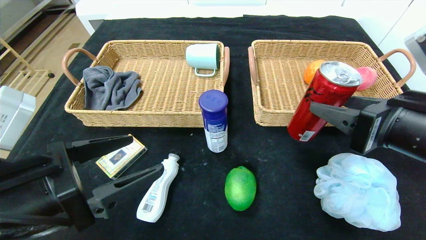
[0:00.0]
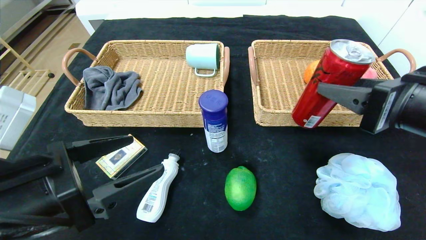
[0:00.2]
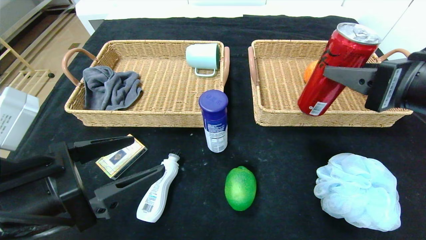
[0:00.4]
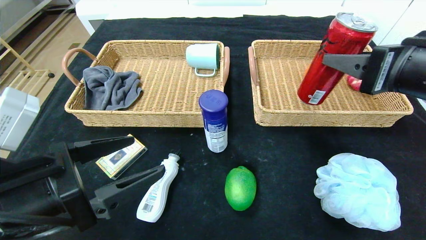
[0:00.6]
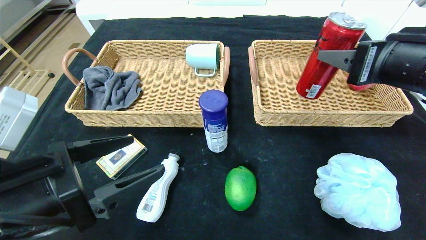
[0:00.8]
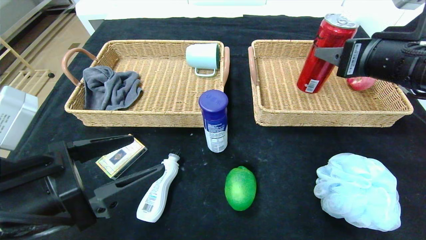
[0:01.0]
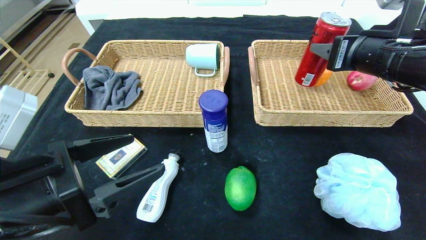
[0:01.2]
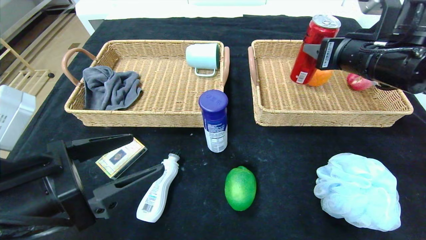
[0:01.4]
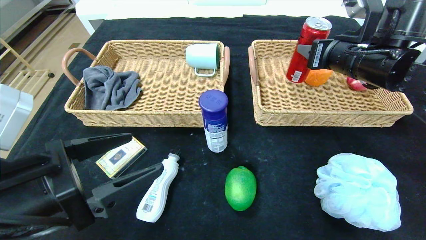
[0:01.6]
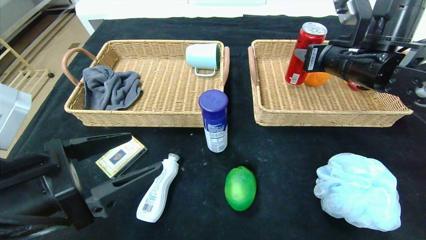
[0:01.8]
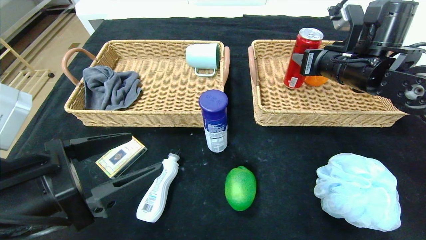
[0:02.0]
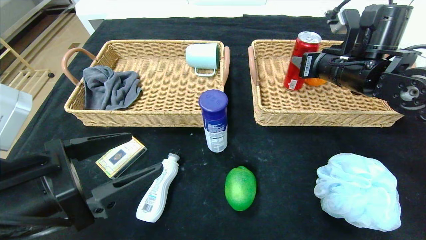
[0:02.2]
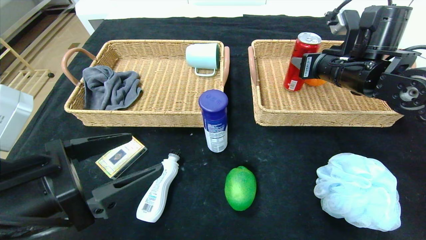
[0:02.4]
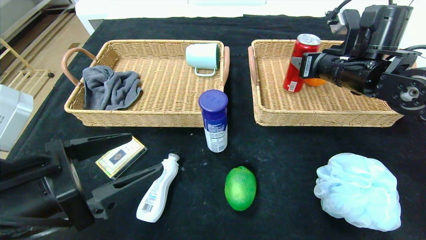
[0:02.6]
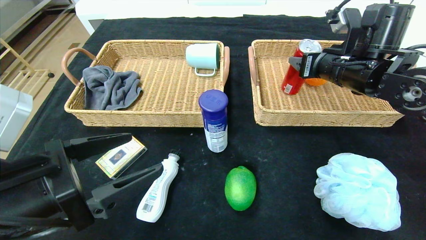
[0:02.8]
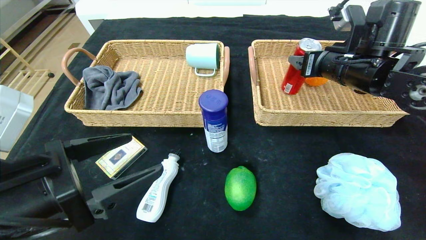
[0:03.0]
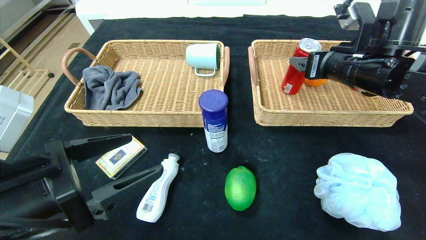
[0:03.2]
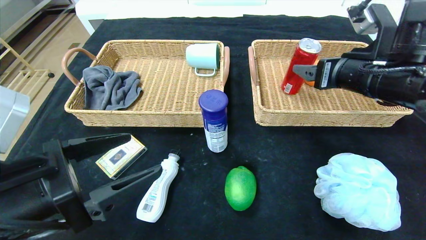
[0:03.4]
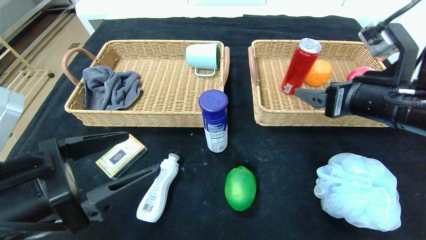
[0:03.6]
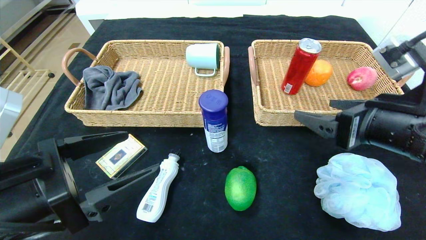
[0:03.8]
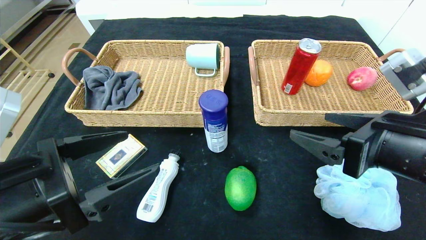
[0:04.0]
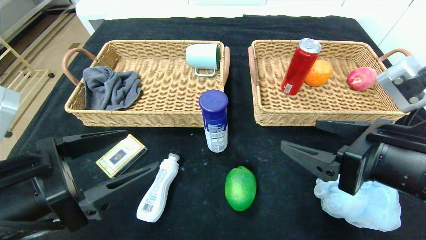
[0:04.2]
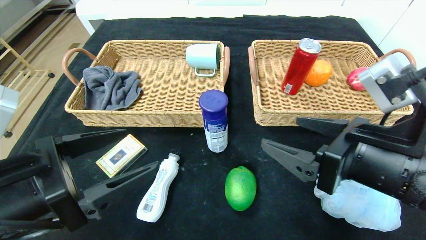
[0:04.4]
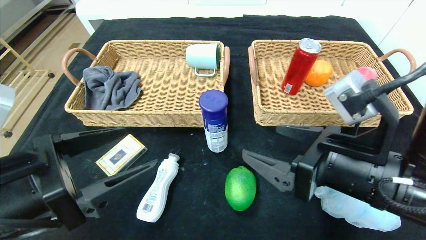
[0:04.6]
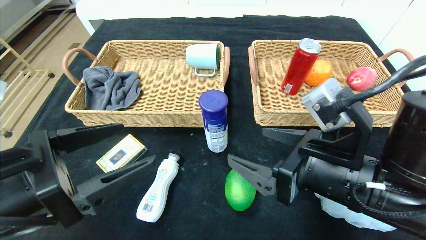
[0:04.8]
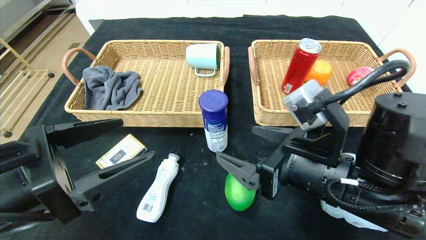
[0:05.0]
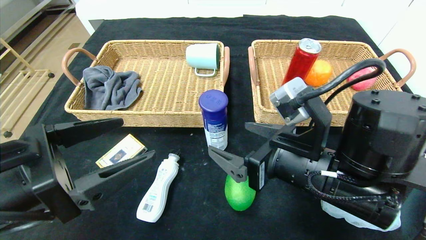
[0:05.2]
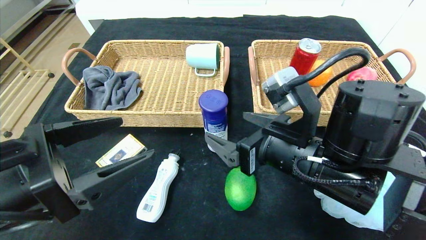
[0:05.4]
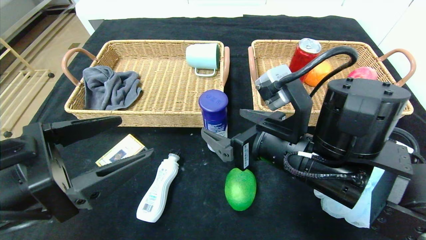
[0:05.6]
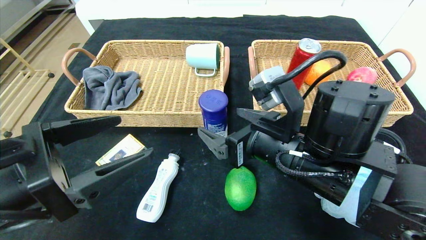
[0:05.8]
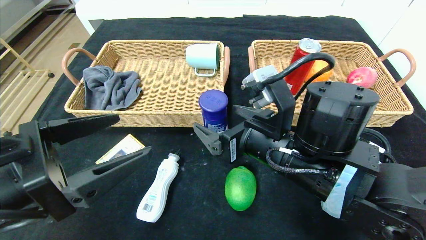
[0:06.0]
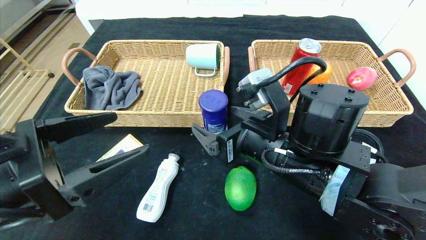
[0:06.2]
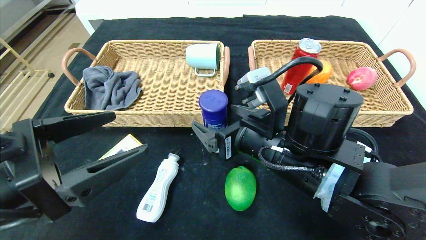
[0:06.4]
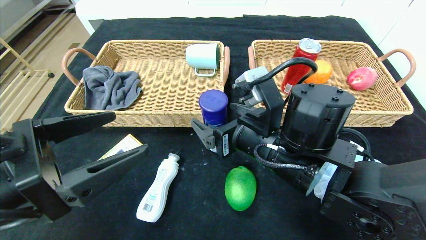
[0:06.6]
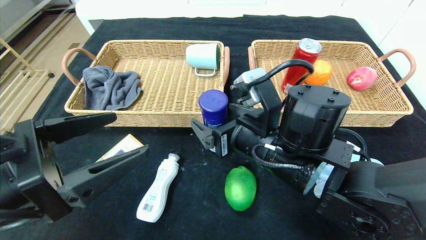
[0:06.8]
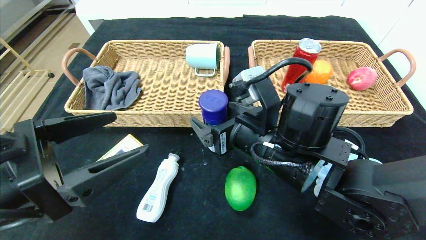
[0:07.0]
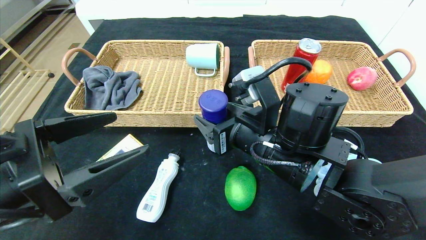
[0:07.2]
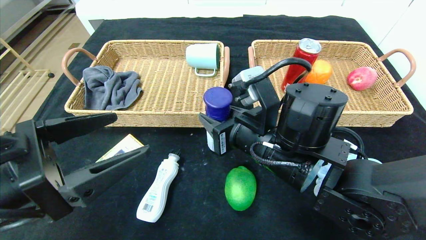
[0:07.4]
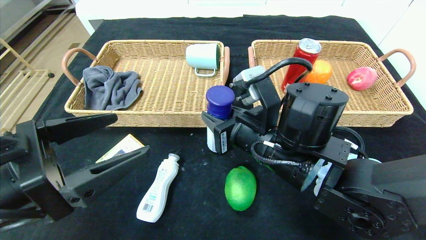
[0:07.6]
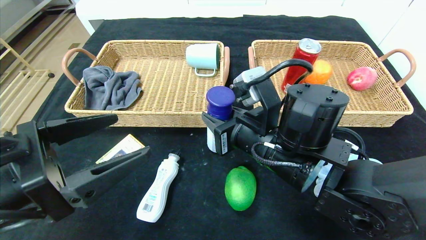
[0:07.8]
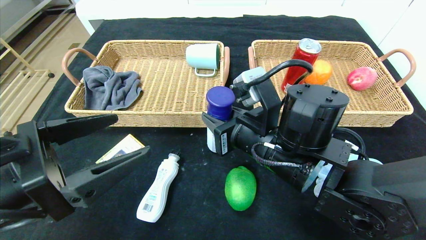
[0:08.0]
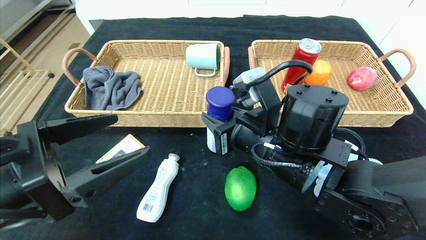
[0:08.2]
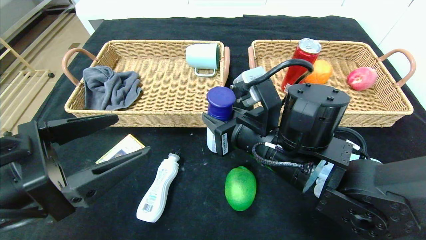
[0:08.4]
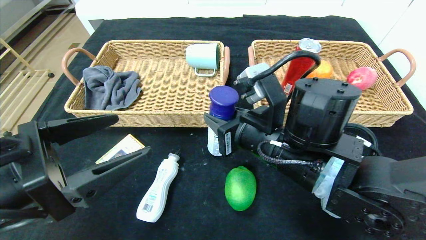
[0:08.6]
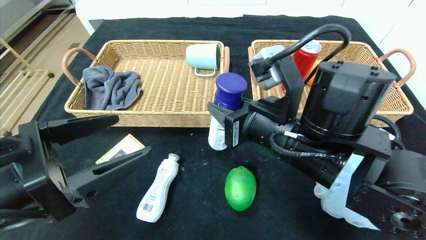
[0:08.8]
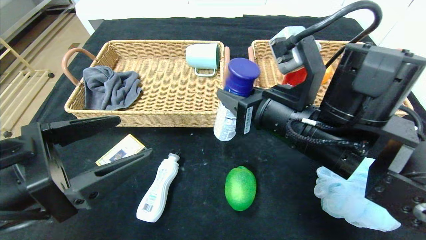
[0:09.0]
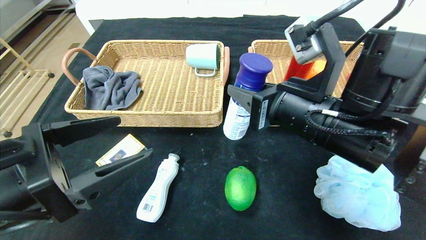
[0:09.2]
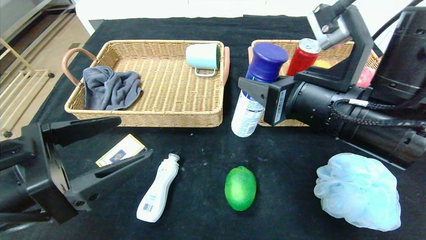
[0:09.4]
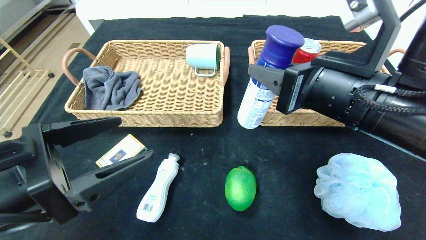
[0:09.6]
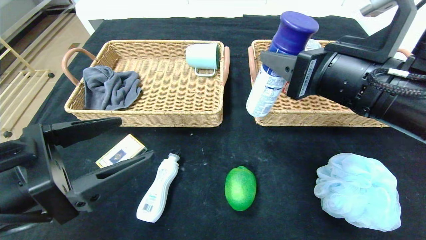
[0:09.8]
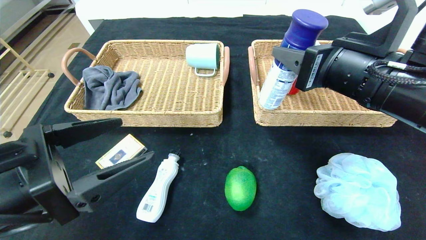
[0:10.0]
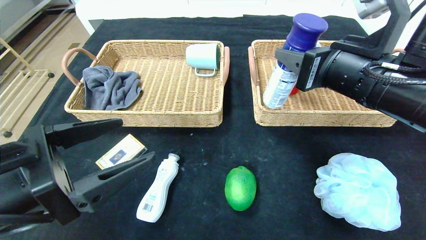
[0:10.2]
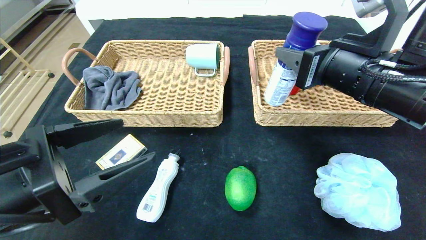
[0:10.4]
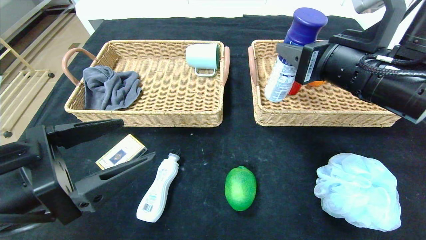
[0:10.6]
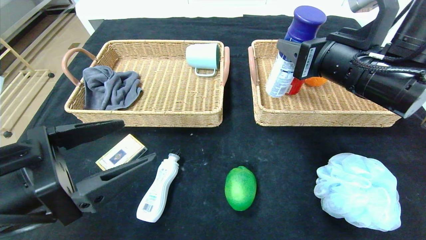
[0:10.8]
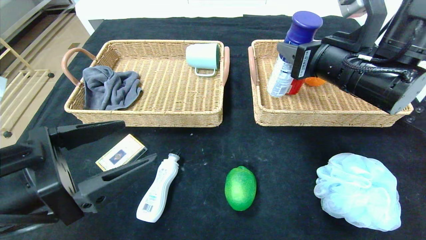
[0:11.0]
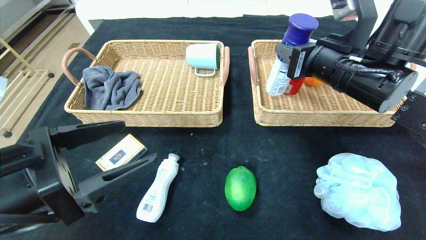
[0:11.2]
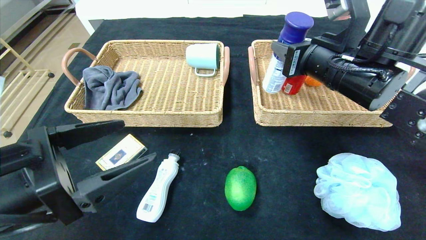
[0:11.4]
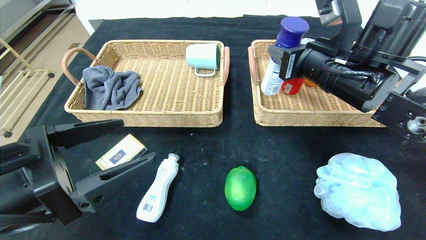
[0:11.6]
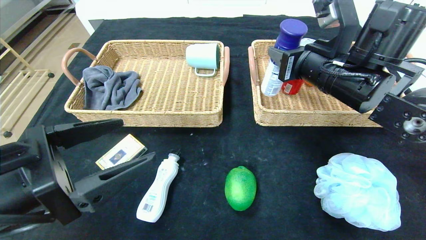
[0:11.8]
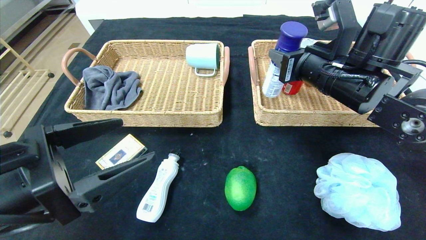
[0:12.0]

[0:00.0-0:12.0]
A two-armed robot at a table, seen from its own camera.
Step, 0:00.0 to 0:03.2: Grasp the canned cola and put it in the right basket.
0:00.0 to 0:01.6: The right gripper shifts some 15 cm forward.
0:01.6 to 0:03.0: The right gripper opens its fingers.
0:03.0 to 0:04.4: The right gripper travels backward by some 20 cm.
0:04.4 to 0:06.0: The right gripper is displaced to the left and forward by approximately 10 cm.
0:06.0 to 0:07.6: The right gripper closes up.
0:07.6 to 0:09.0: The right gripper moves approximately 5 cm.
0:09.0 to 0:10.4: The right gripper shifts approximately 10 cm to the right and upward.
0:10.4 to 0:12.0: The right gripper is displaced forward by some 5 cm.

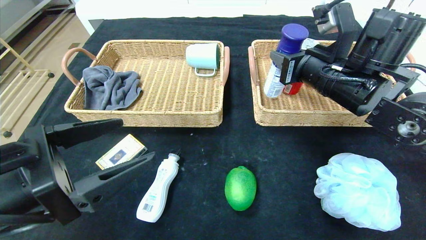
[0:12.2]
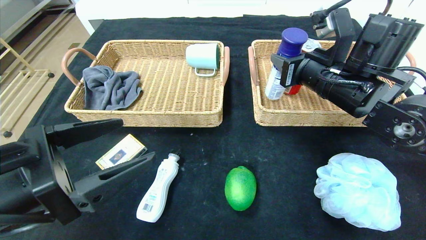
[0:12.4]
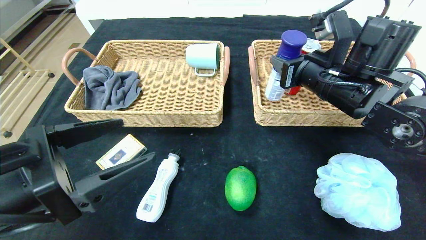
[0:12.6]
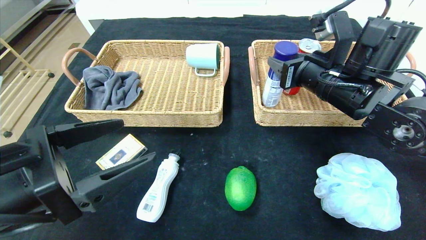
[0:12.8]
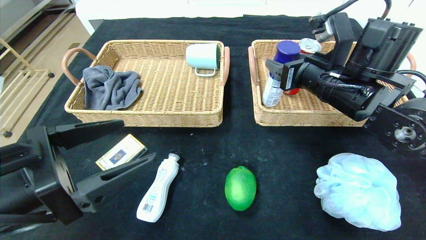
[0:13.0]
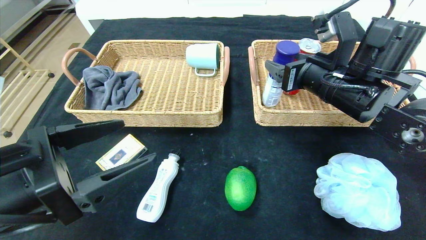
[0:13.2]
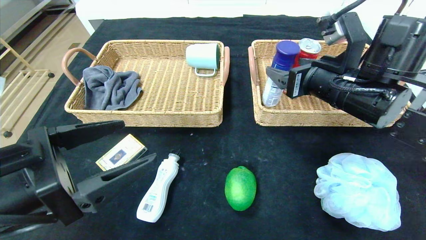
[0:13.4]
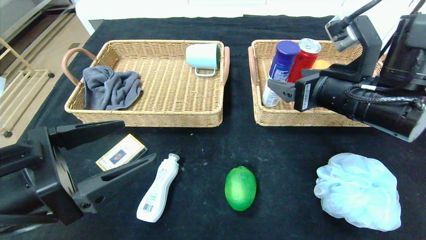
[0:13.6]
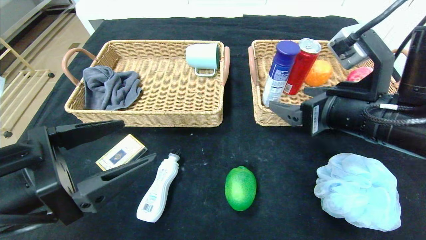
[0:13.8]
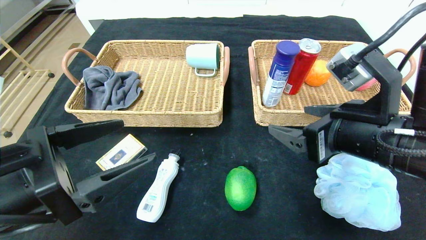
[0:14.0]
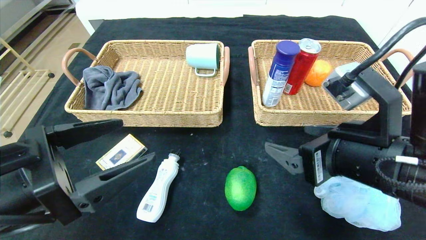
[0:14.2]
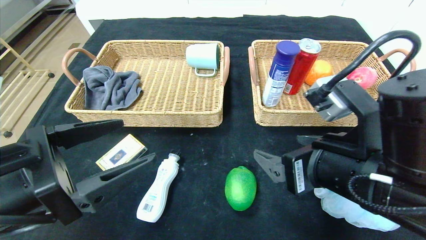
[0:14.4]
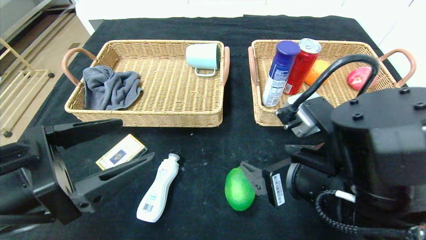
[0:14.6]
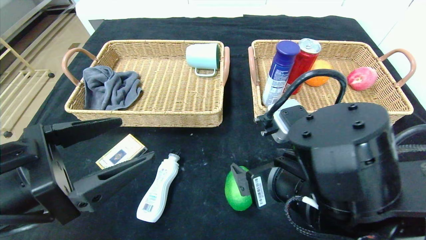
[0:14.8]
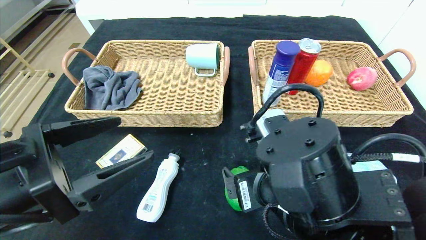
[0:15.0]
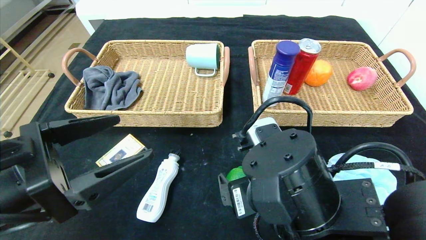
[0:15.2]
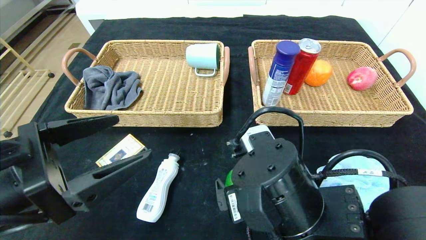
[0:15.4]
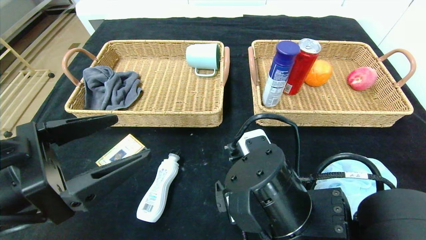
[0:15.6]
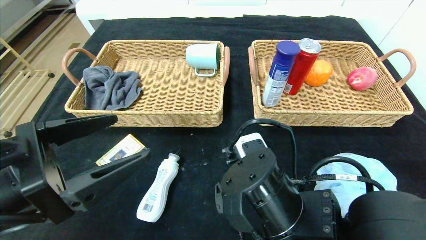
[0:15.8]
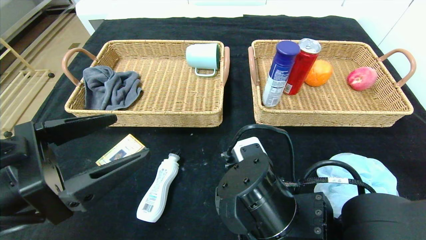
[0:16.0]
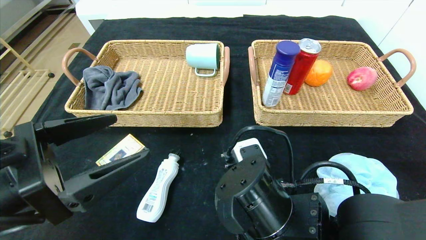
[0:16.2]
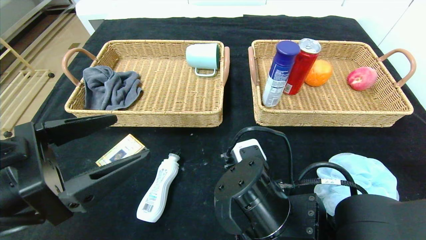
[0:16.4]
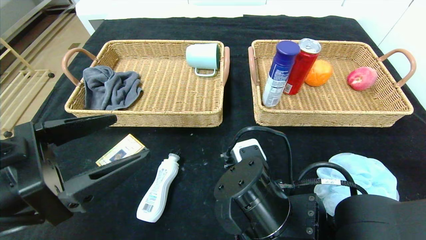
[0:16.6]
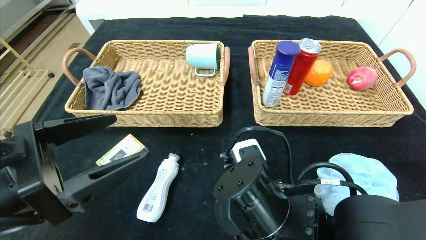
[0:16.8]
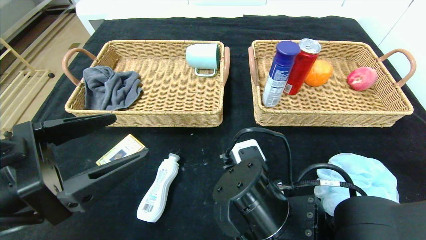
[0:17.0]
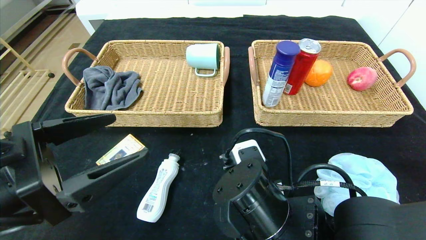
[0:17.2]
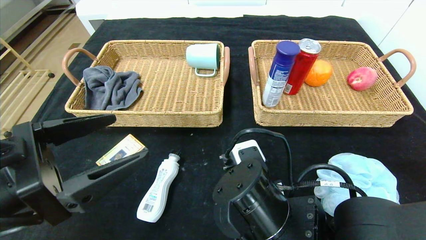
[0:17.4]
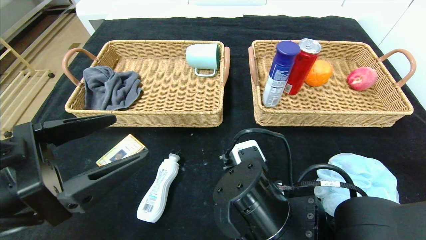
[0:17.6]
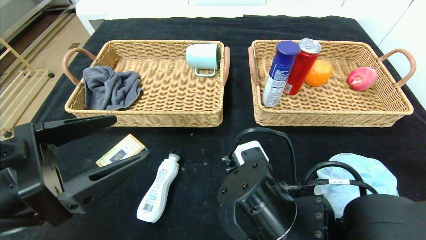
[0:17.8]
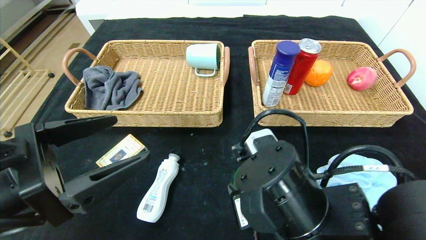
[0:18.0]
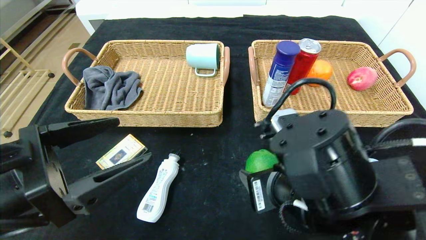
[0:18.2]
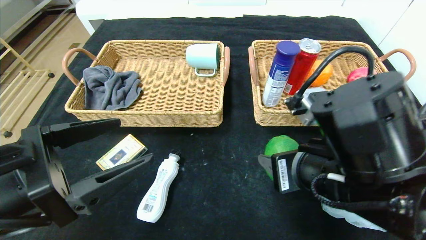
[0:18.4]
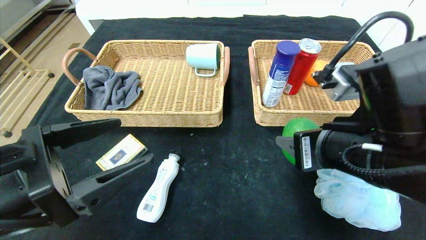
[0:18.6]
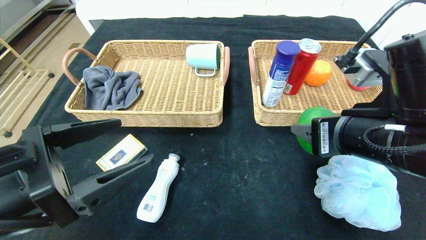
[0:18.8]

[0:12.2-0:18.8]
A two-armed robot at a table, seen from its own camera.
0:12.2 to 0:13.8: The right gripper shifts roughly 10 cm backward, and opens.
0:13.8 to 0:15.4: The right gripper travels to the left, downward and backward by about 15 cm.
0:15.4 to 0:17.2: The right gripper closes its fingers.
0:17.2 to 0:18.8: The right gripper is displaced upward and to the right by about 15 cm.
